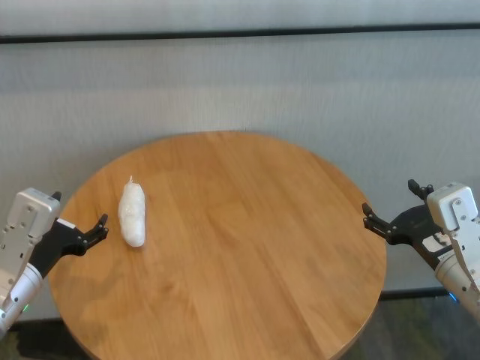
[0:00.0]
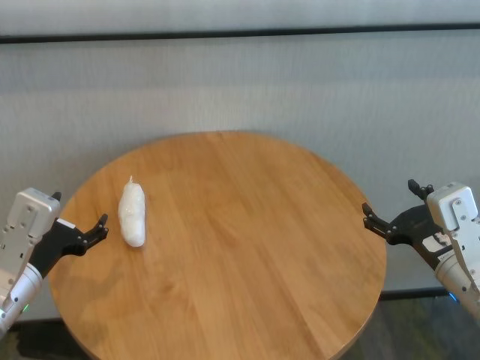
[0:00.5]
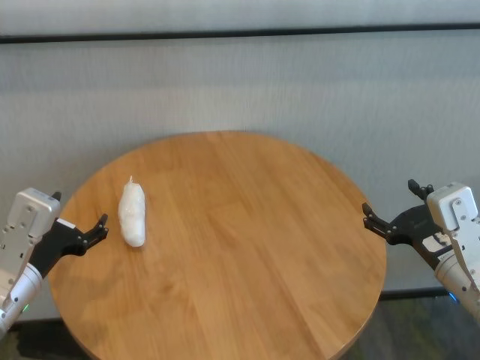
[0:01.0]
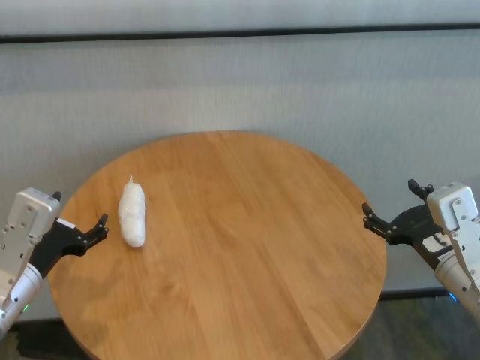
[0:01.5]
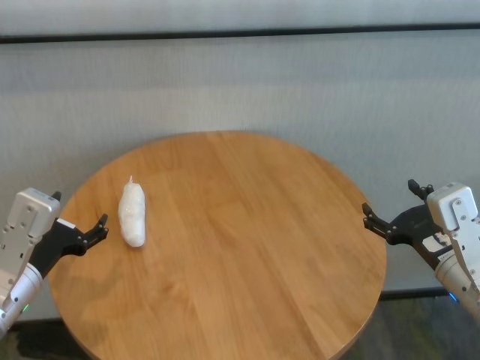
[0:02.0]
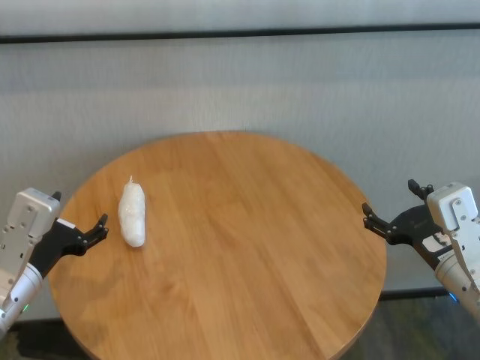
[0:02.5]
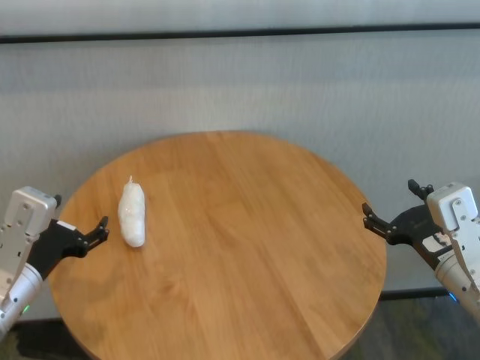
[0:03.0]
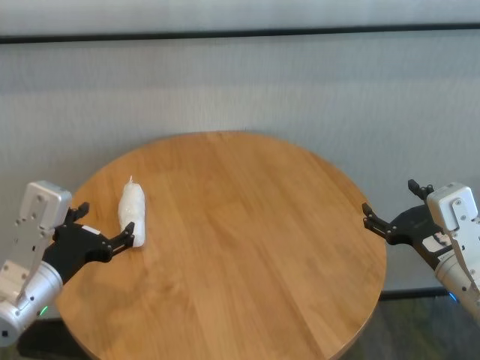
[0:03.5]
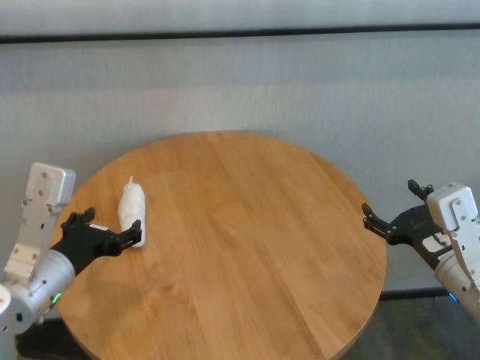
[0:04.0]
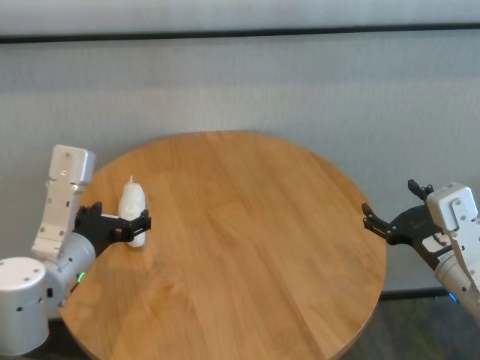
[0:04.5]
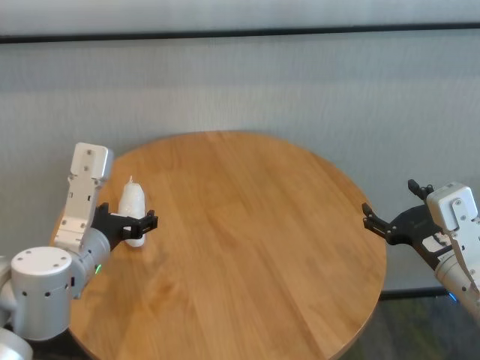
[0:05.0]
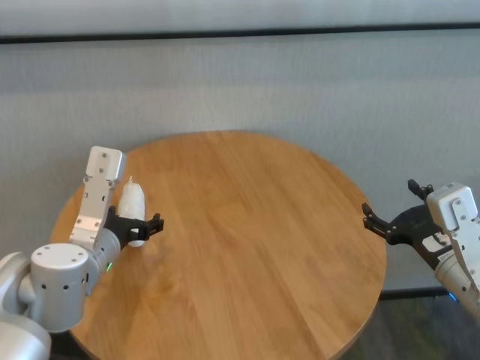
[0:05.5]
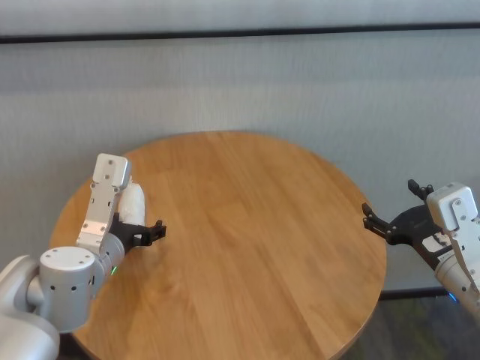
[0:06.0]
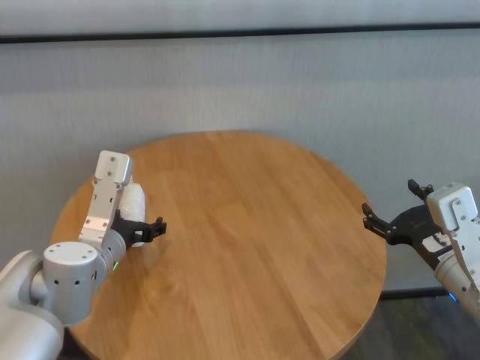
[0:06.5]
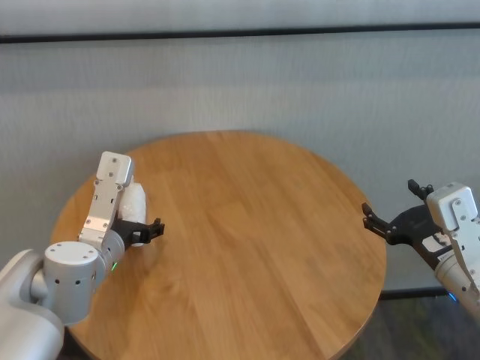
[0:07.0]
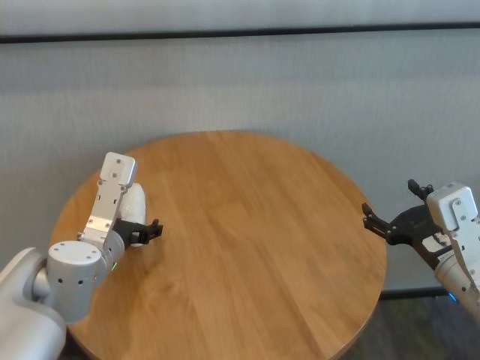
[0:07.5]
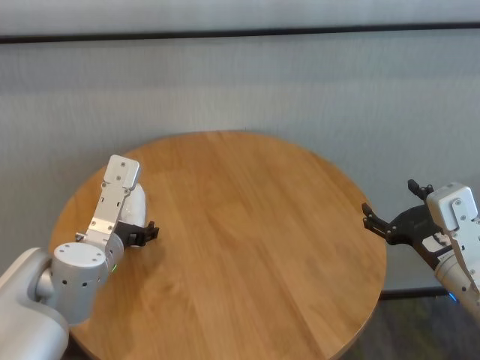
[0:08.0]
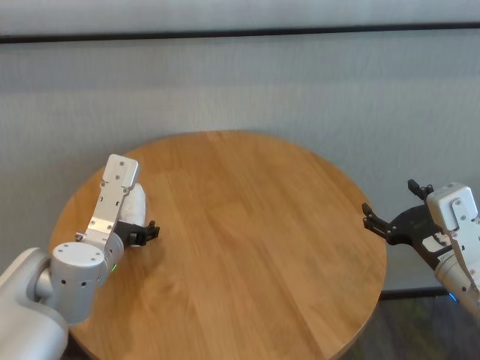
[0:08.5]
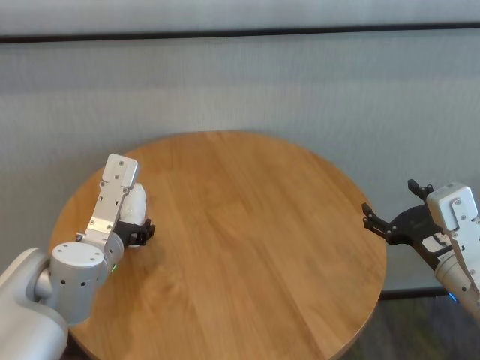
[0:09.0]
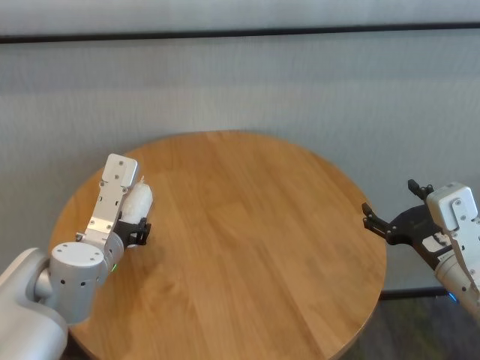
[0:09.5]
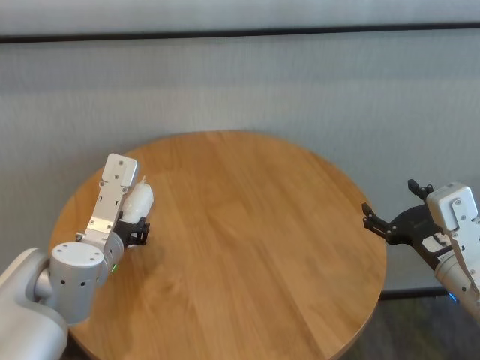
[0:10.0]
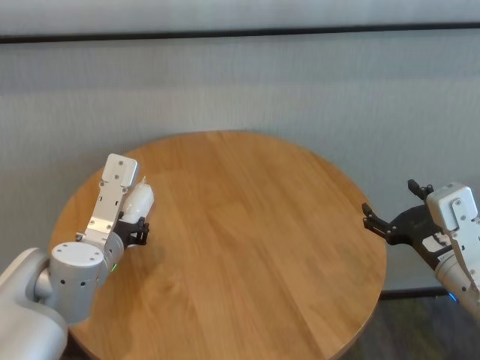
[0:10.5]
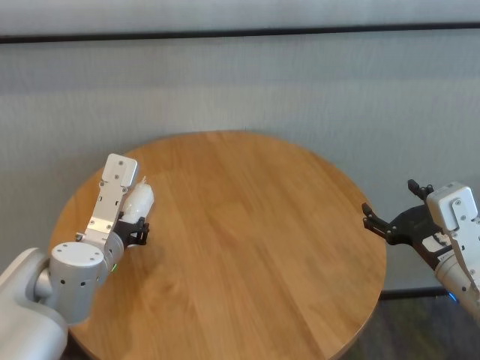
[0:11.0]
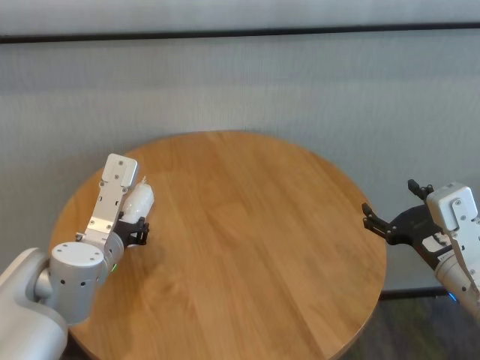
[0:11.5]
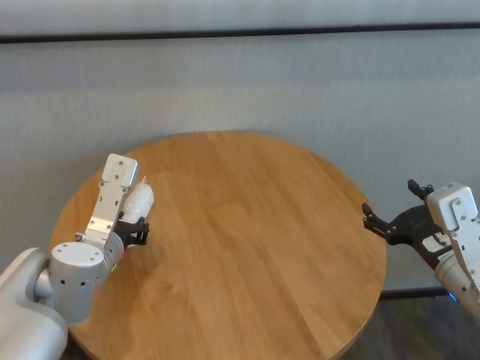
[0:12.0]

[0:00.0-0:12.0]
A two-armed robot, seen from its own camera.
Task of the whole recording: One hand took the sandbag from the other hand and placed it on the table.
Step, 0:00.0 to 0:10.5: Grasp the paper ball with left gripper.

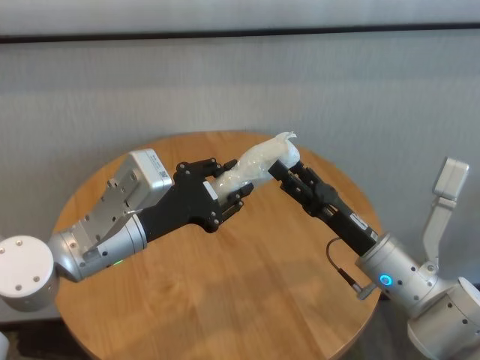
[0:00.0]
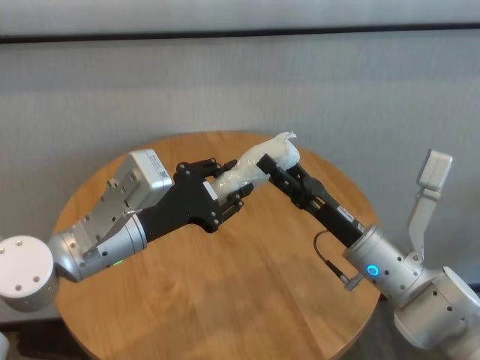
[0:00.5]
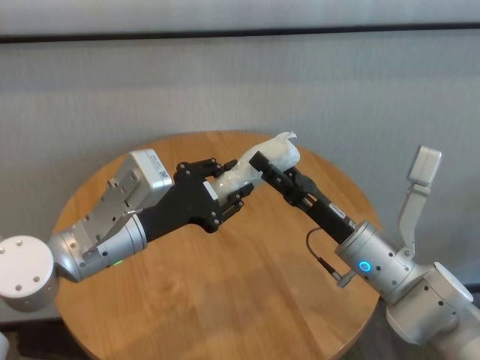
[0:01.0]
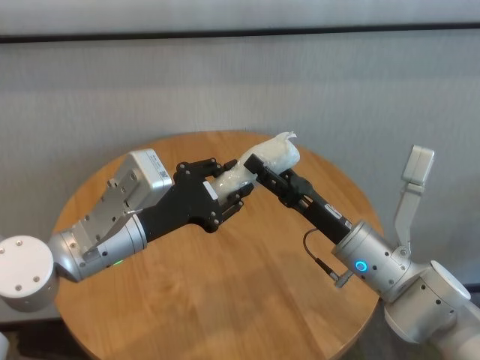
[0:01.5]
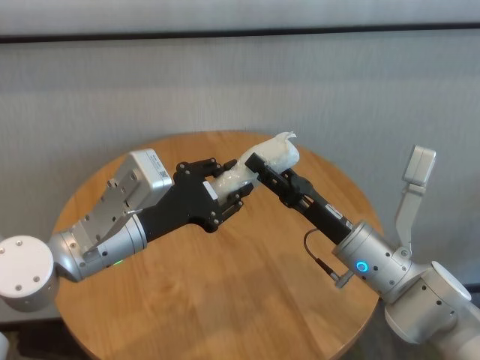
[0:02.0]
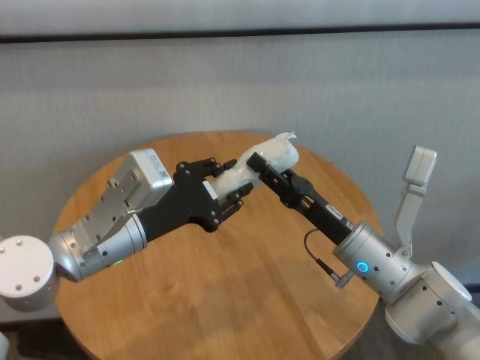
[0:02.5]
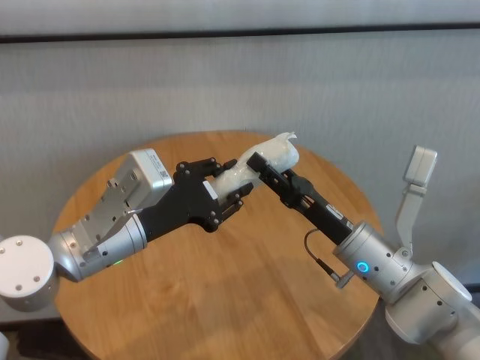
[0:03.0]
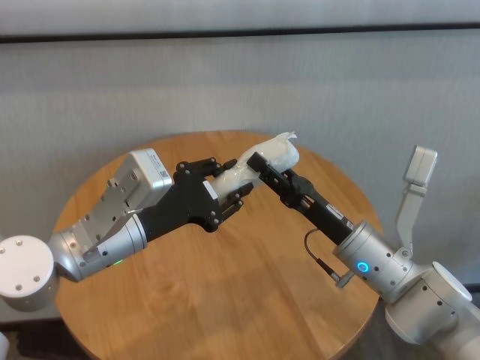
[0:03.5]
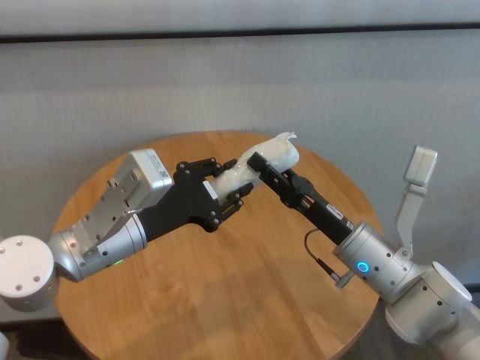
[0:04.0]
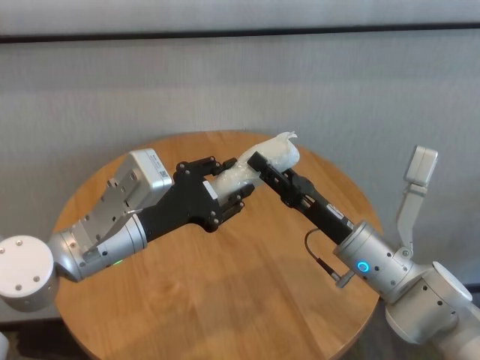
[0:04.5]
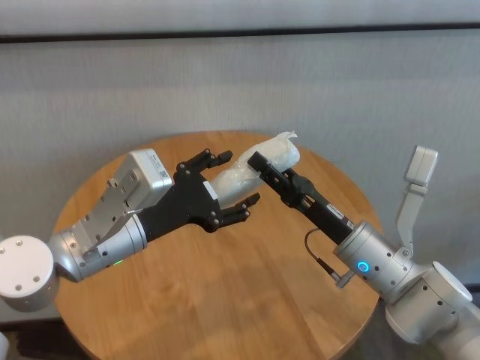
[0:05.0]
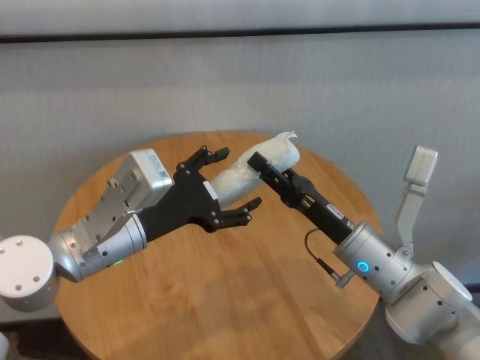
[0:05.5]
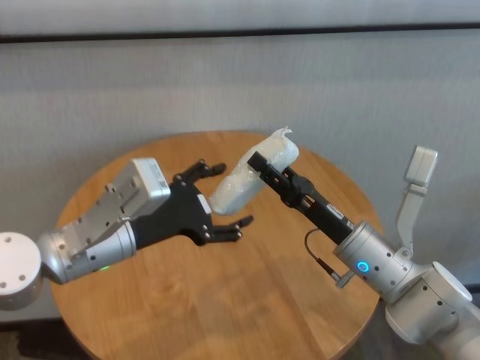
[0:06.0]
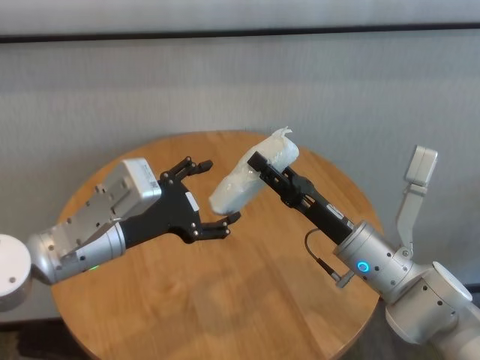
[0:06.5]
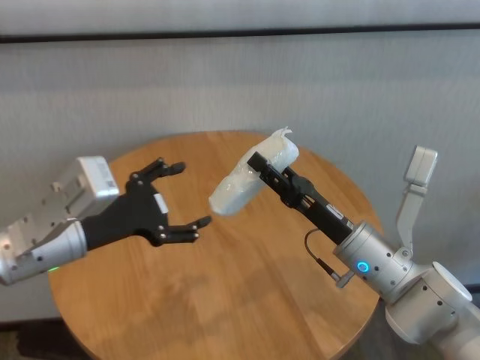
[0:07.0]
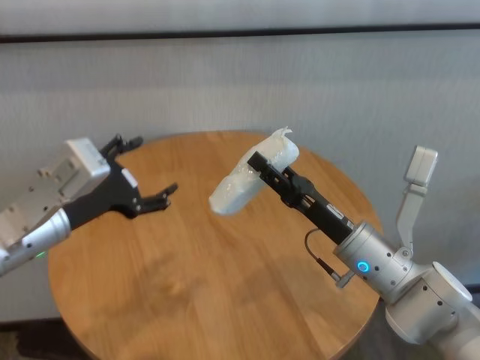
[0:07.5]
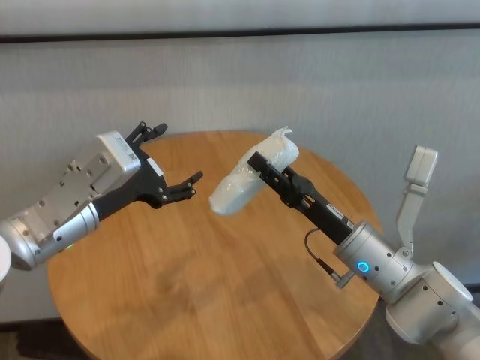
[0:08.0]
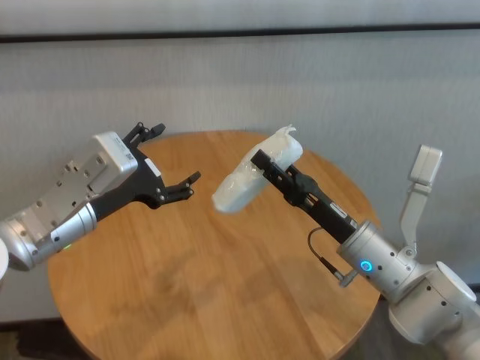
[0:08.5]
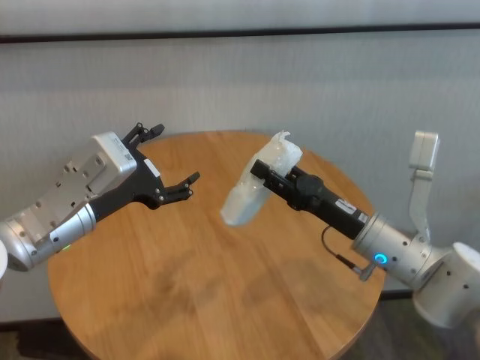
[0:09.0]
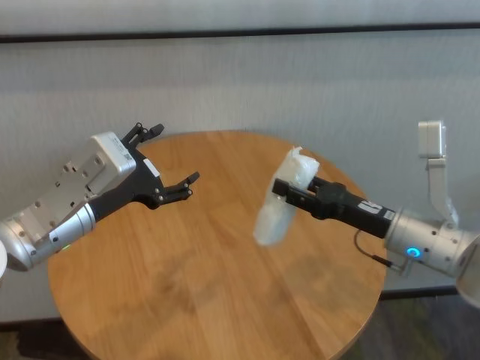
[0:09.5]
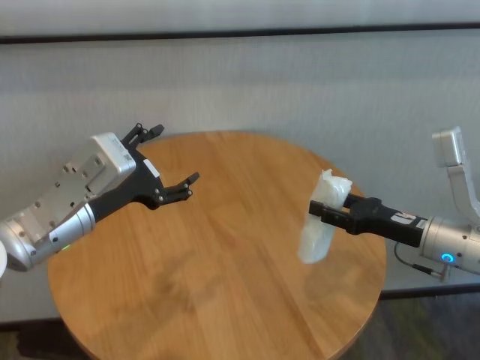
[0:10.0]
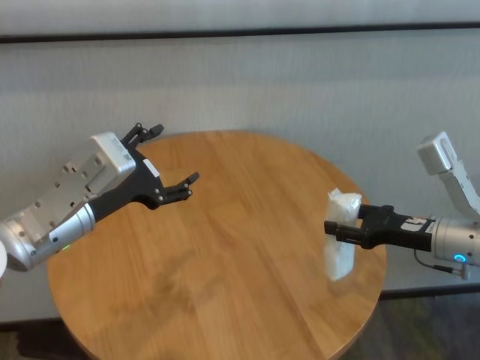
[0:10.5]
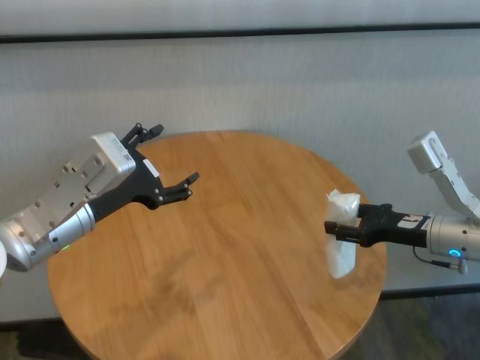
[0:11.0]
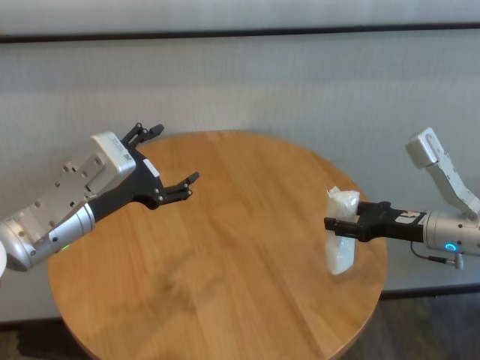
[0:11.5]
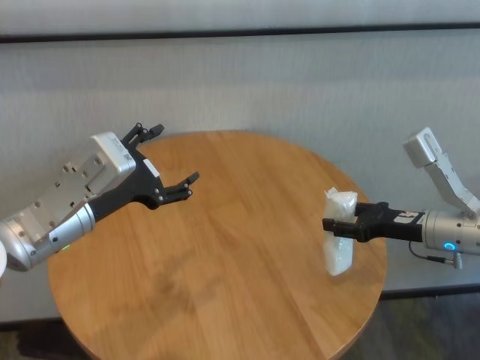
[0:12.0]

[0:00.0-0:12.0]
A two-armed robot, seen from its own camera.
Task of the whole recording: One hand took the sandbag from the other hand and placed it on the table.
Step, 0:00.0 to 0:06.5: Pass the paper ball to the right gripper.
